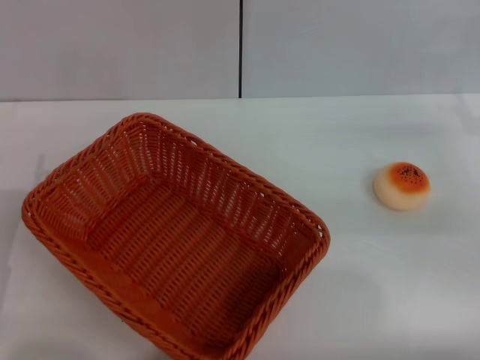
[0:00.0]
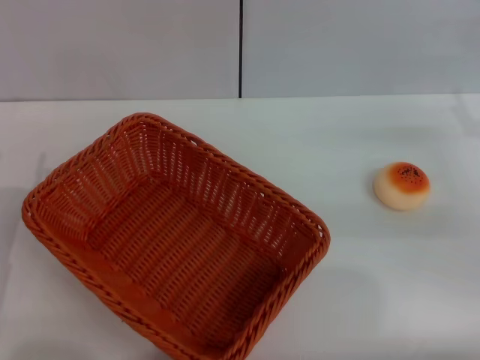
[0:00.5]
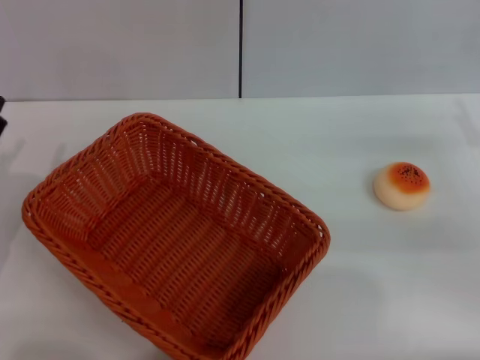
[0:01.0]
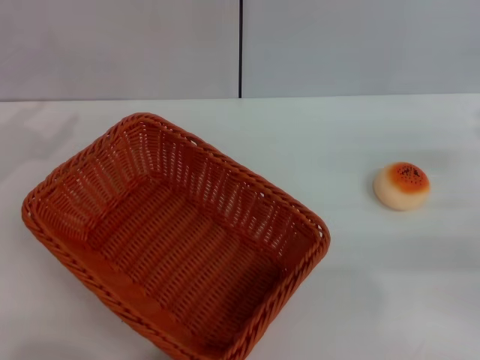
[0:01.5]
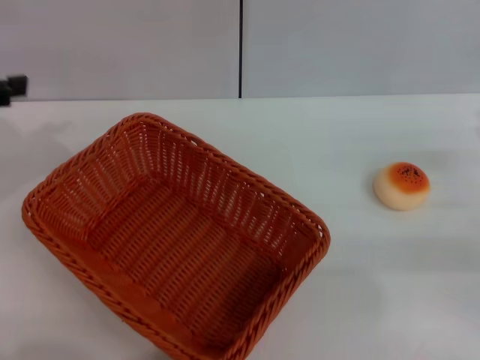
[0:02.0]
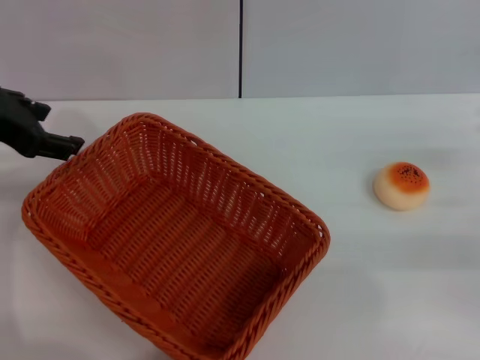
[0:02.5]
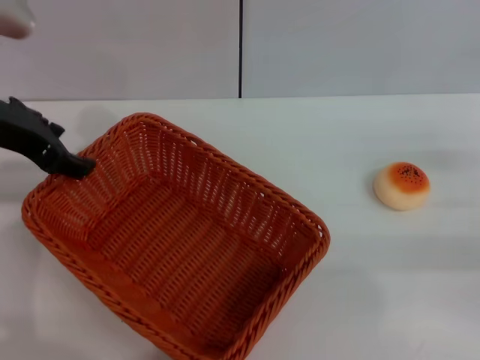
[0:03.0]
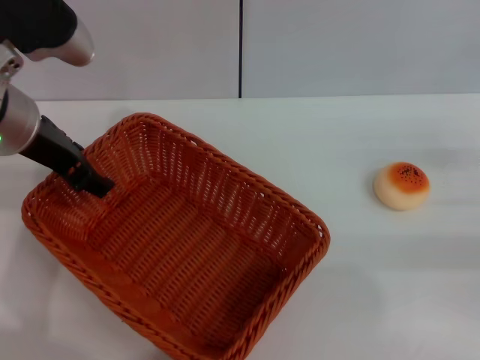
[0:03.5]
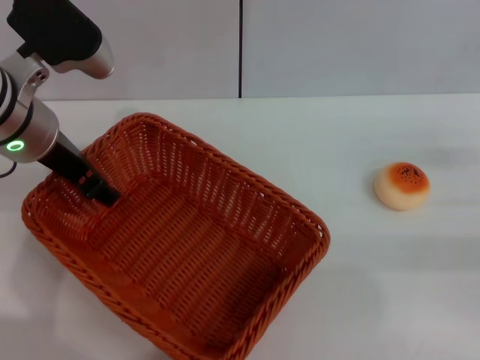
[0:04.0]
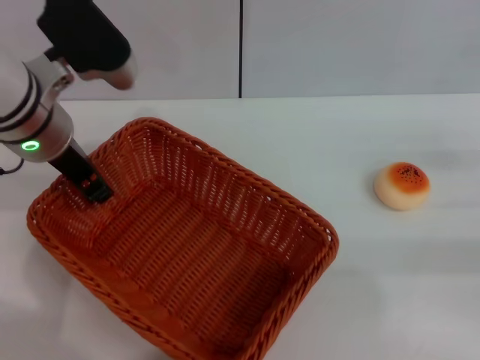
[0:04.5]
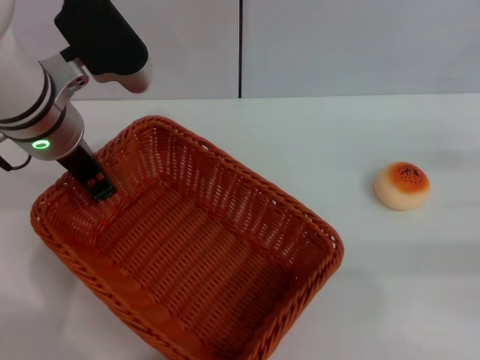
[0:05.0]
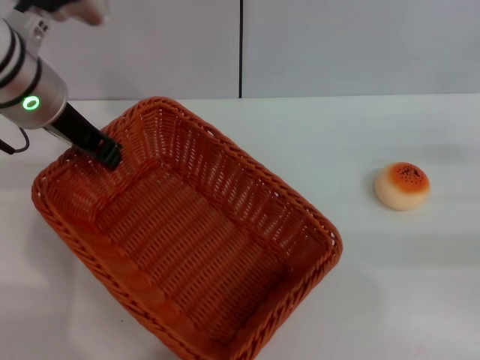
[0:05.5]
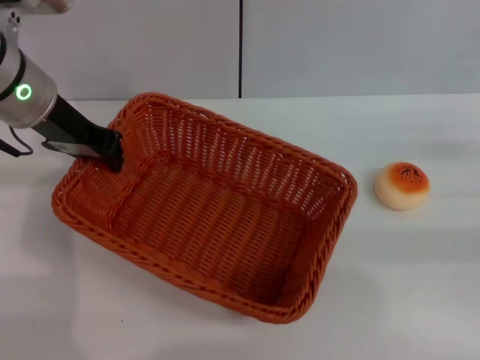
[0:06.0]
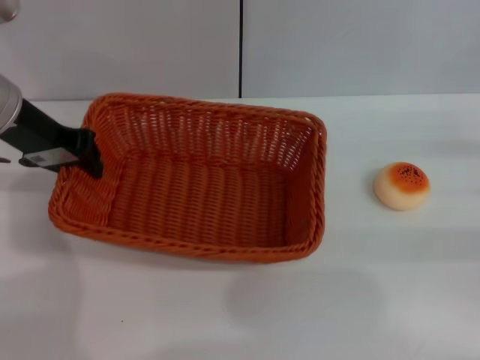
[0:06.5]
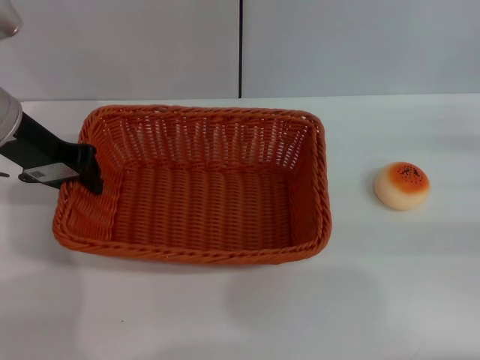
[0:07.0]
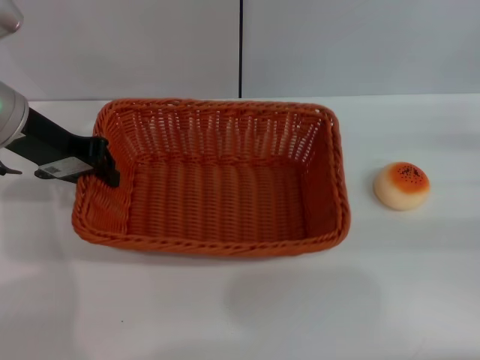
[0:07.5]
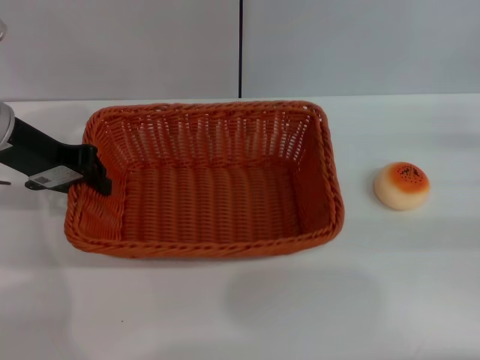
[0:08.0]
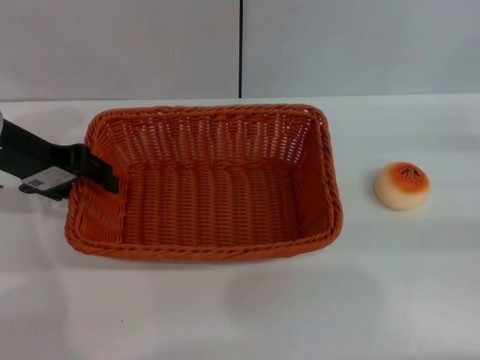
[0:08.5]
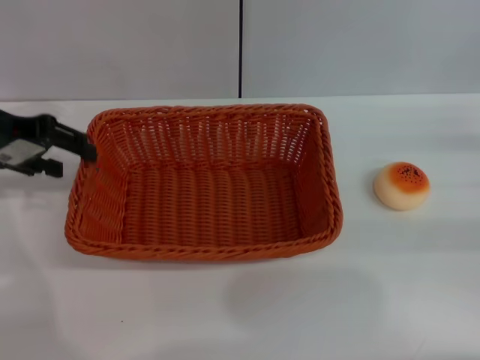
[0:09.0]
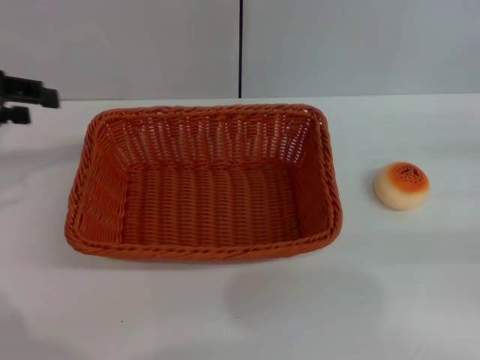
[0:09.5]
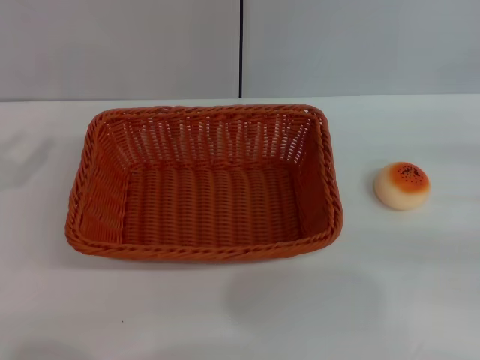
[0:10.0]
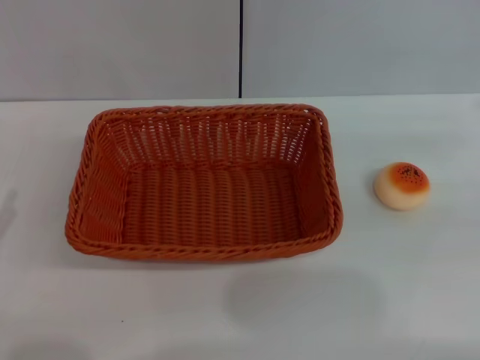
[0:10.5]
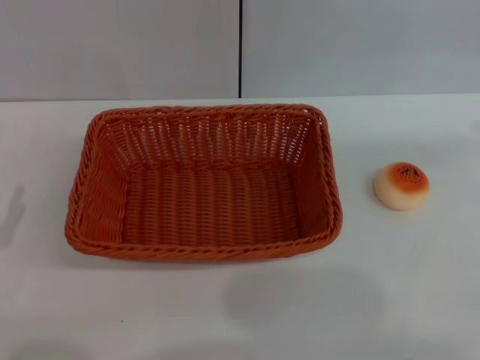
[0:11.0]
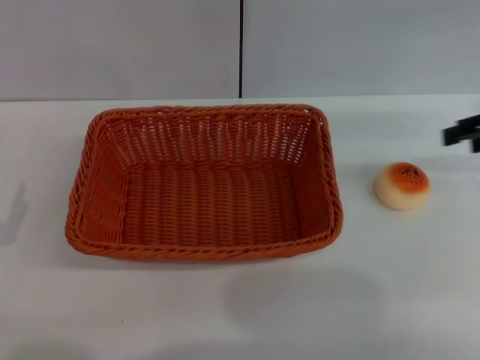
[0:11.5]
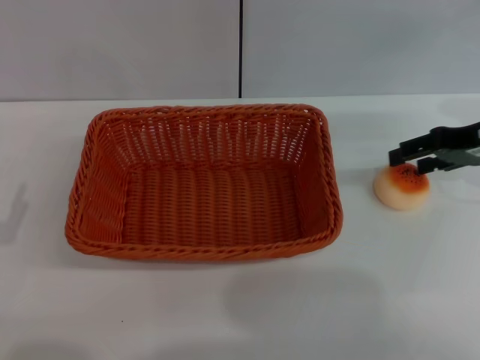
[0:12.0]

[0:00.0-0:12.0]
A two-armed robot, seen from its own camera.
Step, 0:00.0 to 0:09.5: Move the basket to the center of view with the left gripper.
0:02.0 to 0:04.0: The left gripper travels to the right by approximately 15 cm.
0:04.0 to 0:06.0: The left gripper closes up.
0:06.0 to 0:08.0: The left gripper shifts by some 5 cm.
0:08.0 to 0:10.0: The left gripper goes about 20 cm to the left and backward, and opens.
0:10.0 to 0:12.0: The right gripper travels to the left and forward by some 15 cm; the left gripper is displaced downward, backward and to the right by about 15 cm.

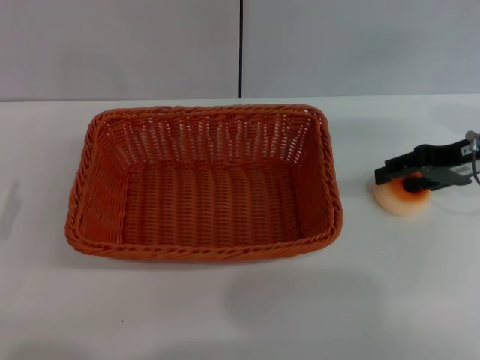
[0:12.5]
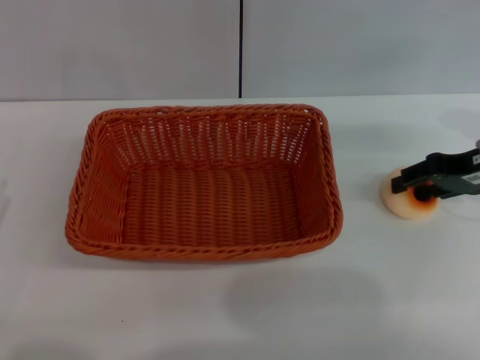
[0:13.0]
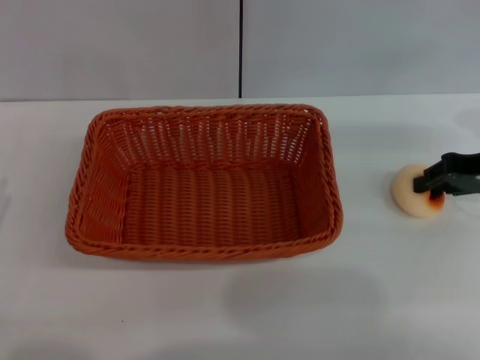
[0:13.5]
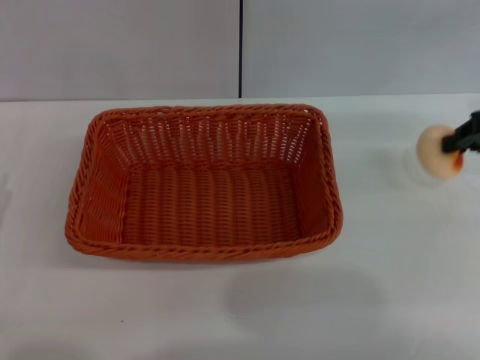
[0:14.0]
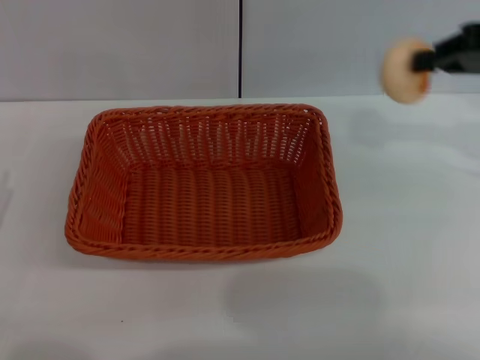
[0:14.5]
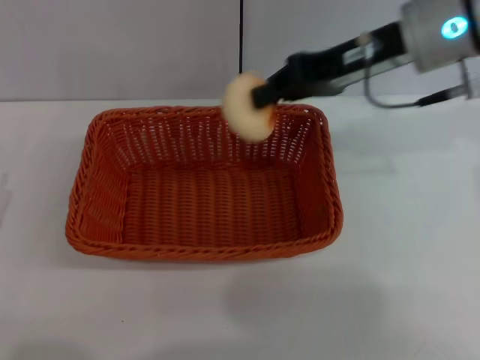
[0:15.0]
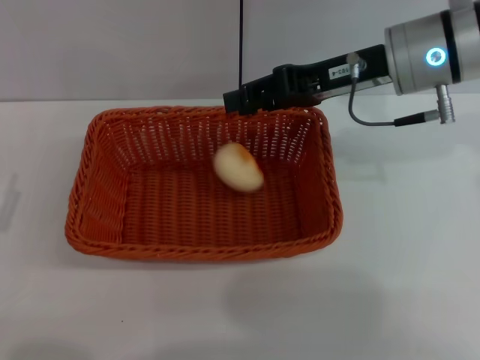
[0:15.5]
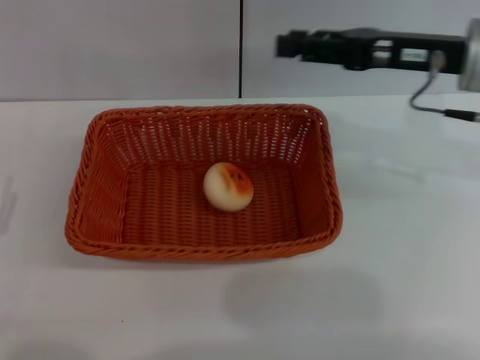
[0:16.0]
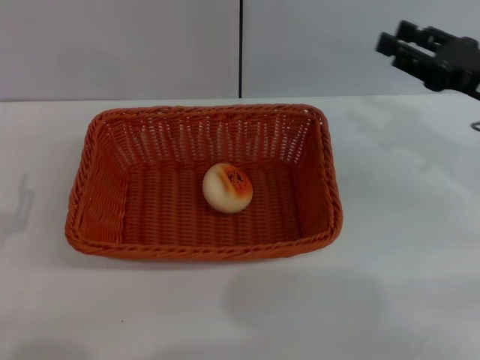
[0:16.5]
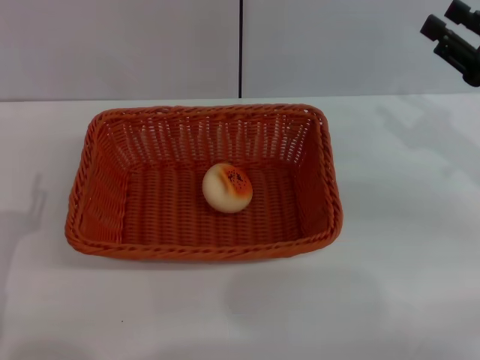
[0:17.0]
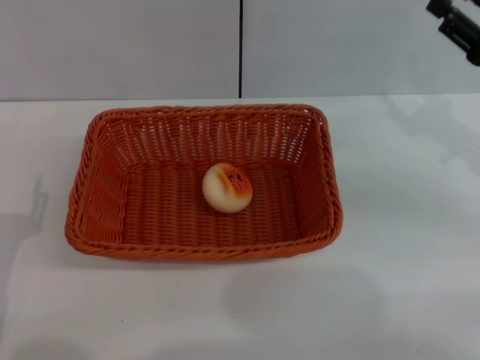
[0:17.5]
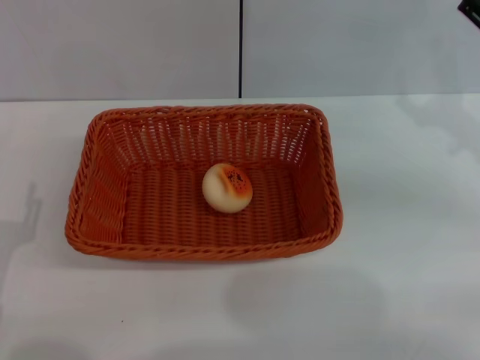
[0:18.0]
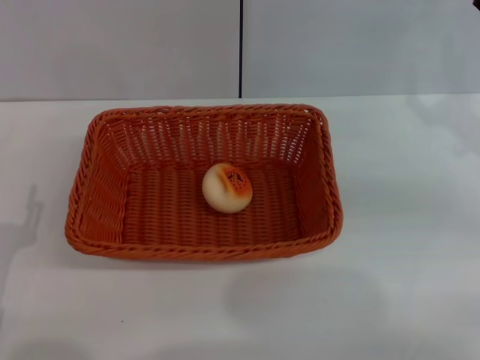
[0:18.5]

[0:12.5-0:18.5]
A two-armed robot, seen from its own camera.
Step, 0:14.5 to 0:16.0: Place the egg yolk pastry into the basket with the right gripper.
0:12.5 to 0:14.5: The right gripper goes some 10 cm upward, and closes.
0:14.5 to 0:16.5: The right gripper heads downward, covering roughly 10 cm, reaches approximately 15 cm to the left, then returns, and opens up.

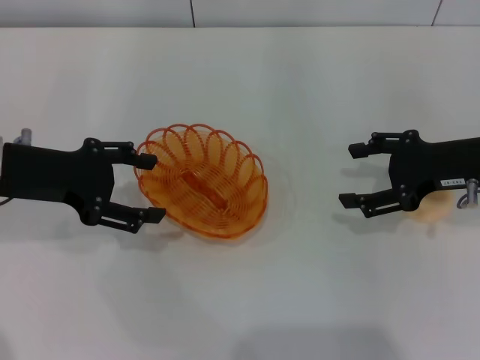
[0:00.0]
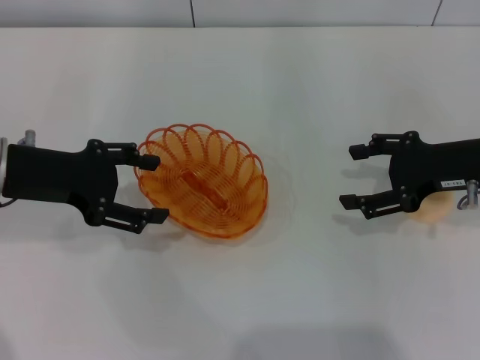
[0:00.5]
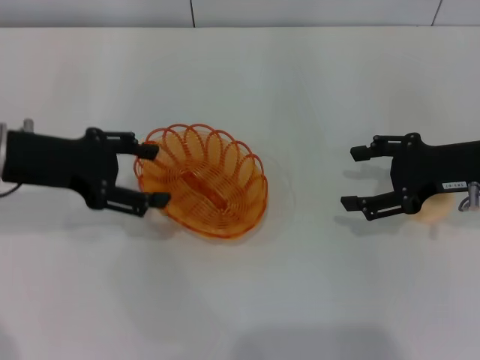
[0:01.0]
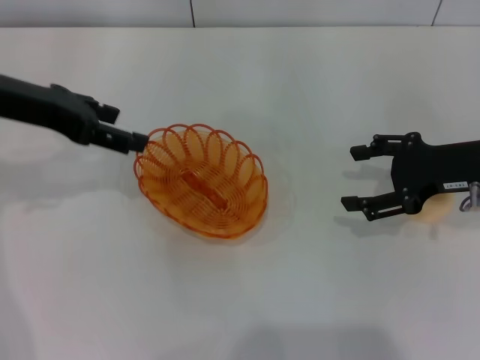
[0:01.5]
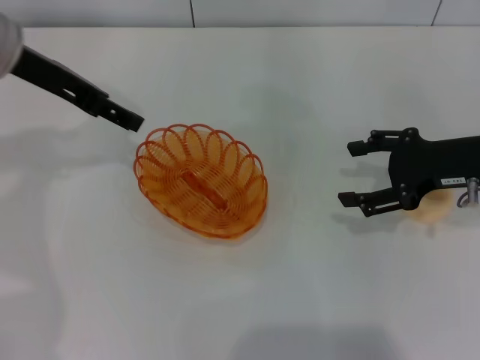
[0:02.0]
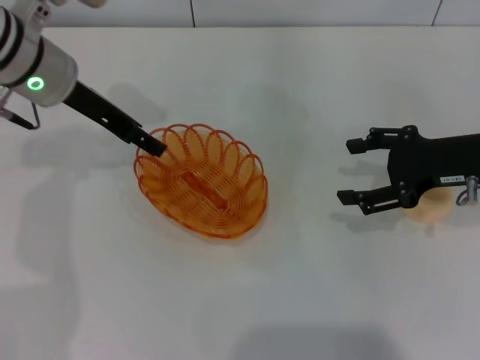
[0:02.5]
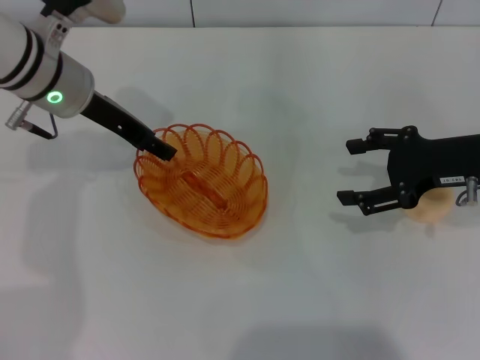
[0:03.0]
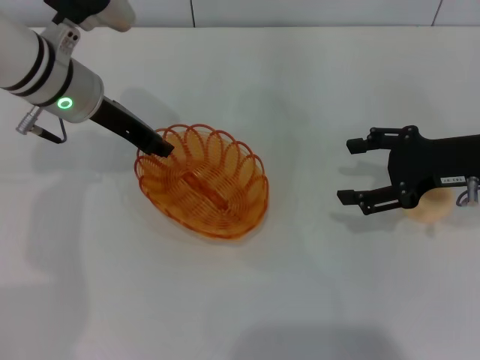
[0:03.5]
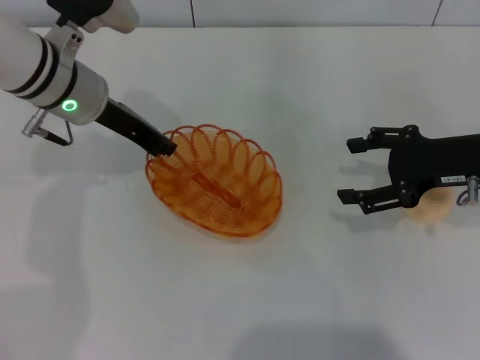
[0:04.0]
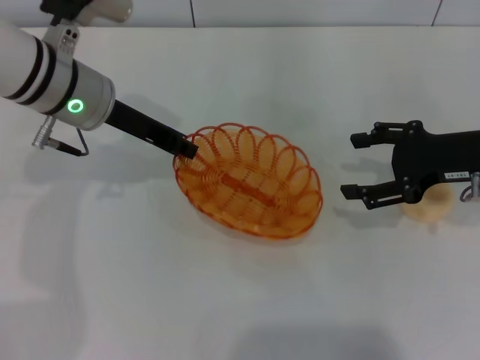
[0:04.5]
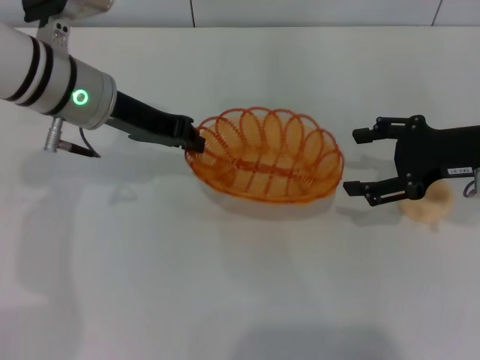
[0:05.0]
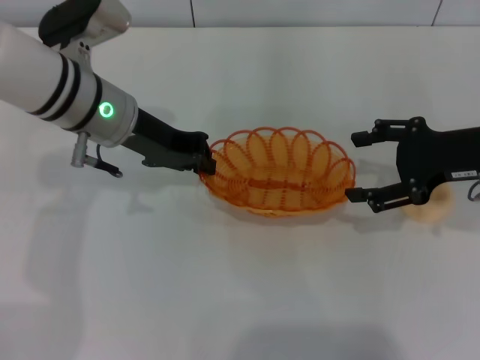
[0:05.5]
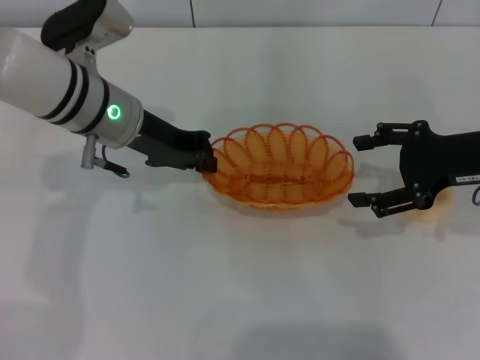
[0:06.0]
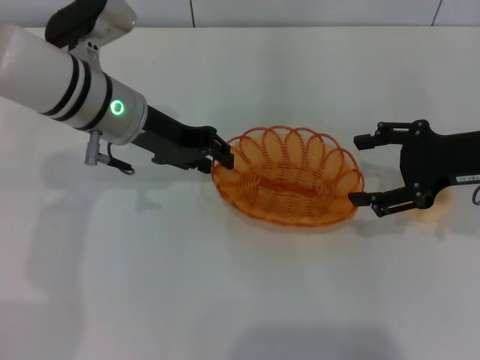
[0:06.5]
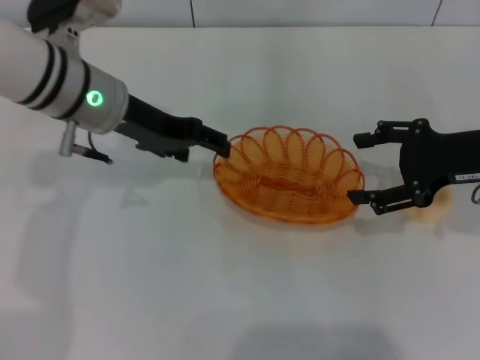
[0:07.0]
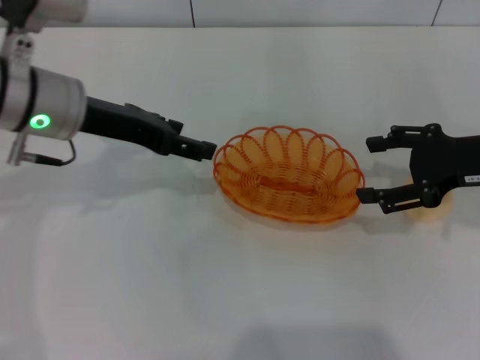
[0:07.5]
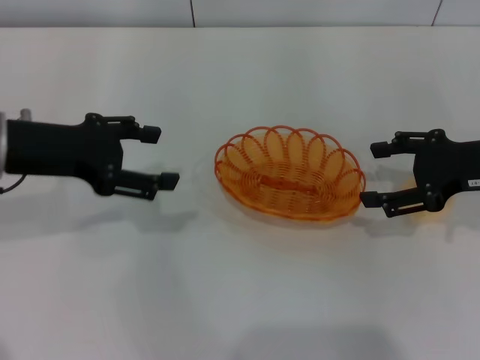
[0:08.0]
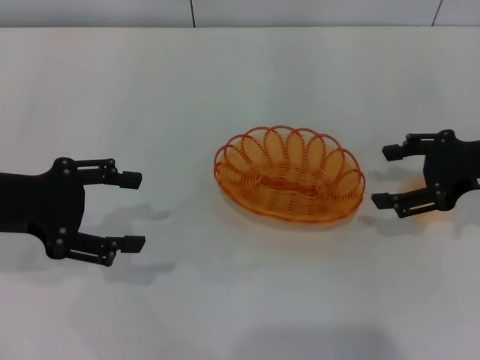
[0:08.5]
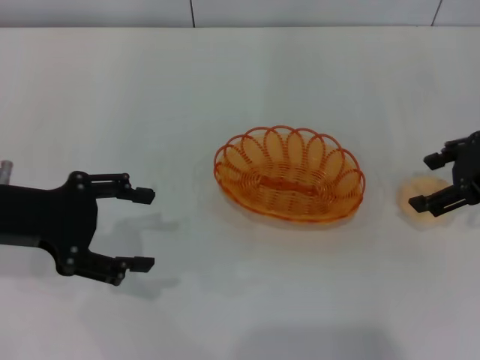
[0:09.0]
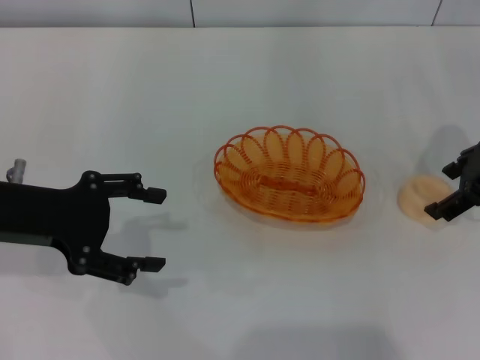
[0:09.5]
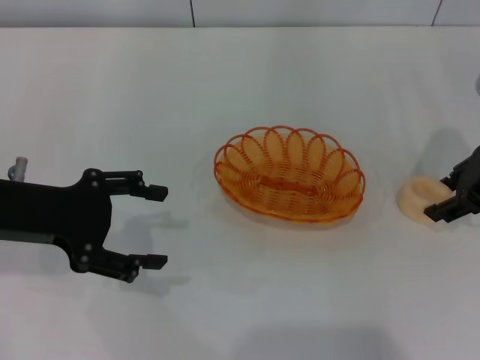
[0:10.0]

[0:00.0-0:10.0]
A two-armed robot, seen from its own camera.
Step, 0:00.0 to 0:04.0: Pick up the basket with the left gripper.
Step, 0:04.5 to 0:07.5: Place the basket in the center of view with the left gripper.
0:00.0 to 0:02.0: The left gripper heads upward and forward, covering about 10 cm.
0:02.0 to 0:04.0: The left gripper is displaced downward by approximately 5 cm, and closes its fingers.
0:06.0 to 0:08.0: The left gripper is displaced to the left and backward by approximately 15 cm, and opens up.
